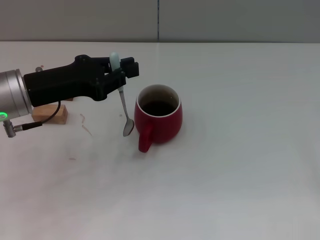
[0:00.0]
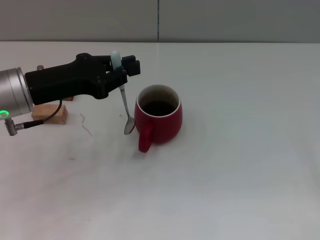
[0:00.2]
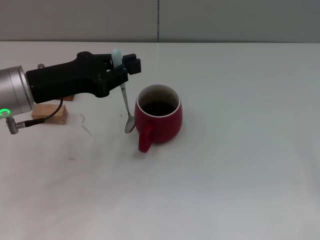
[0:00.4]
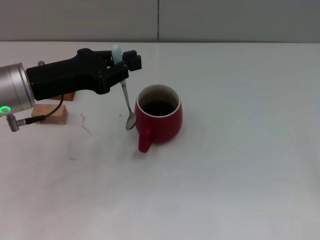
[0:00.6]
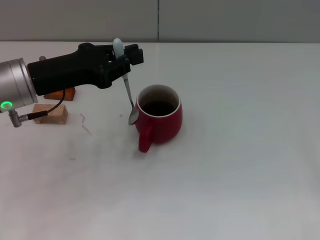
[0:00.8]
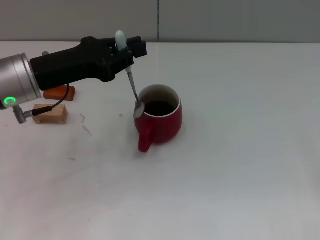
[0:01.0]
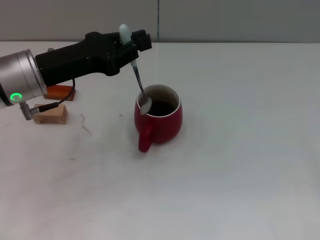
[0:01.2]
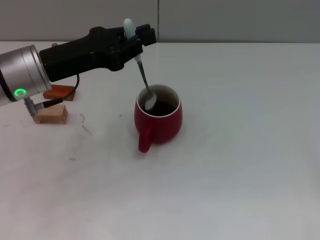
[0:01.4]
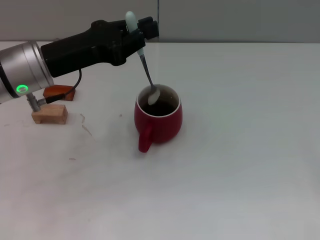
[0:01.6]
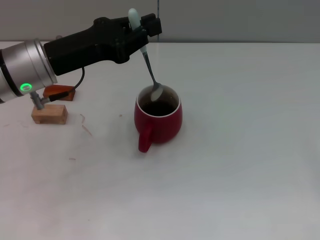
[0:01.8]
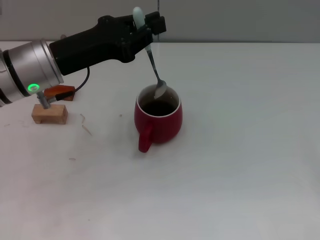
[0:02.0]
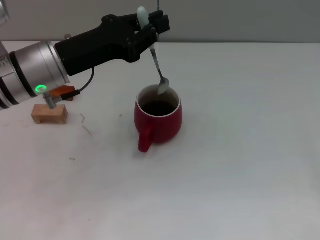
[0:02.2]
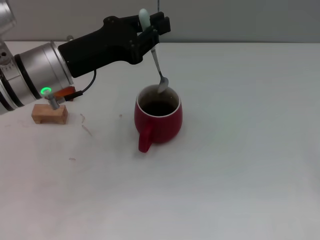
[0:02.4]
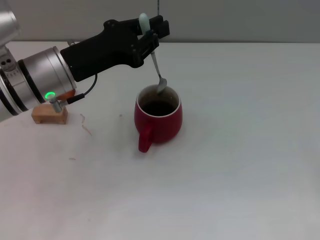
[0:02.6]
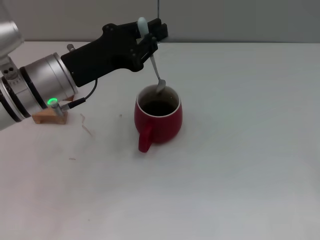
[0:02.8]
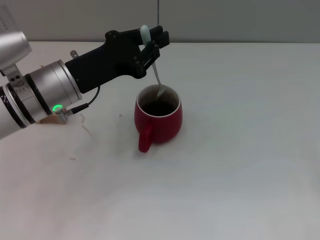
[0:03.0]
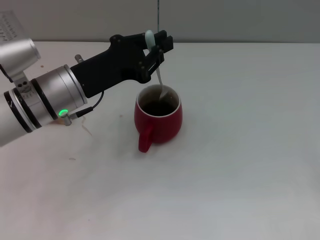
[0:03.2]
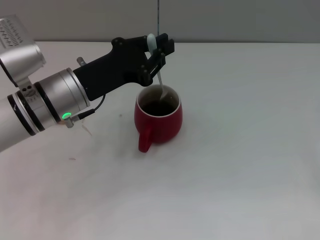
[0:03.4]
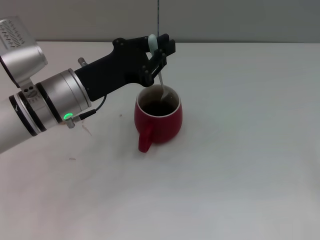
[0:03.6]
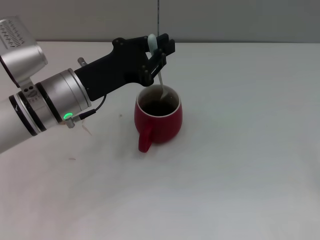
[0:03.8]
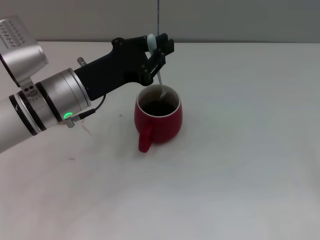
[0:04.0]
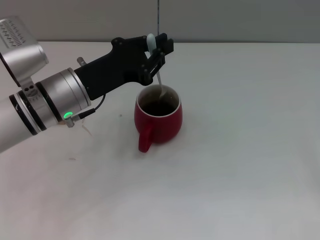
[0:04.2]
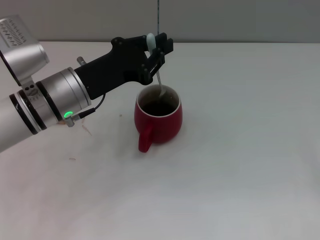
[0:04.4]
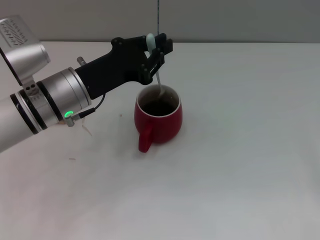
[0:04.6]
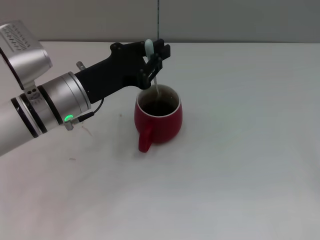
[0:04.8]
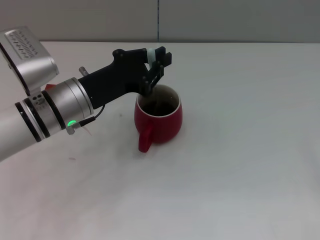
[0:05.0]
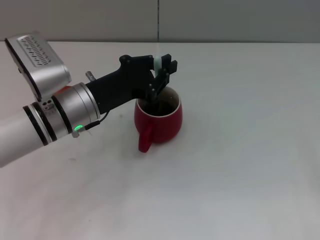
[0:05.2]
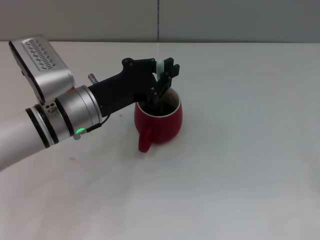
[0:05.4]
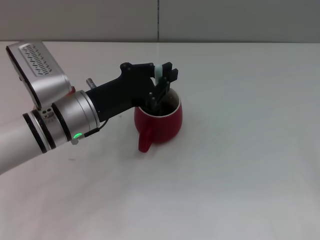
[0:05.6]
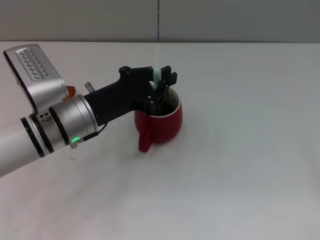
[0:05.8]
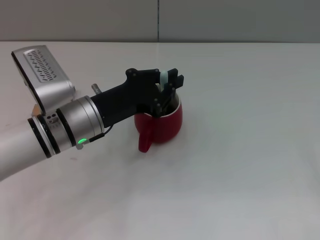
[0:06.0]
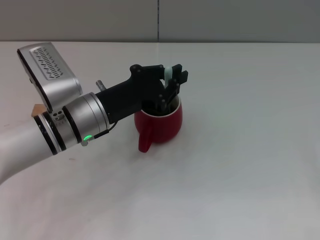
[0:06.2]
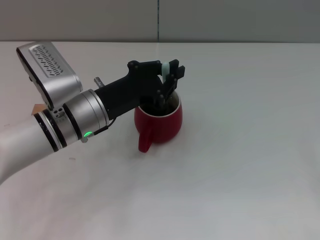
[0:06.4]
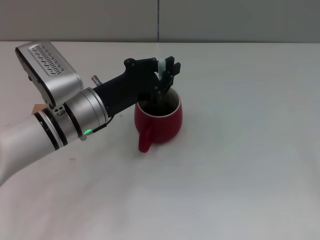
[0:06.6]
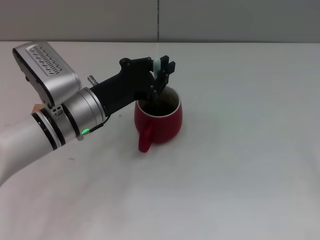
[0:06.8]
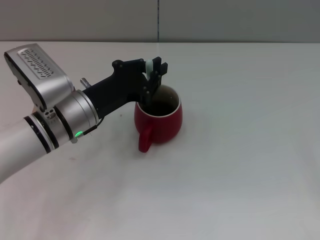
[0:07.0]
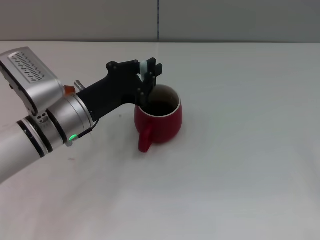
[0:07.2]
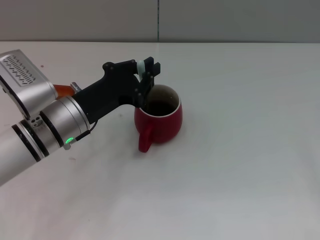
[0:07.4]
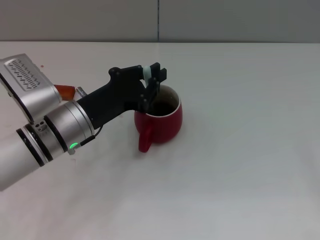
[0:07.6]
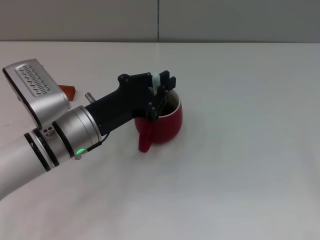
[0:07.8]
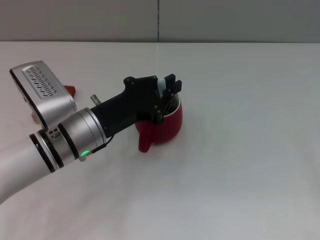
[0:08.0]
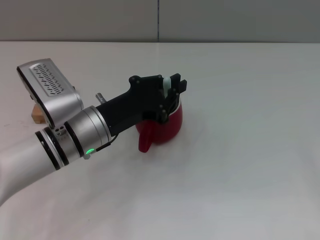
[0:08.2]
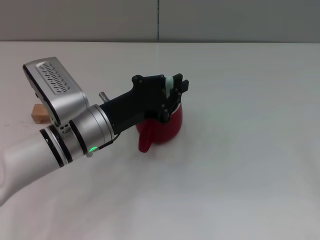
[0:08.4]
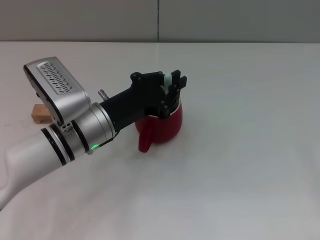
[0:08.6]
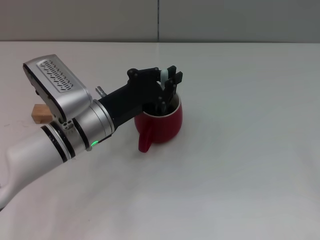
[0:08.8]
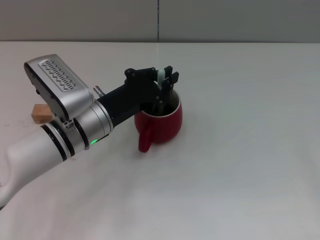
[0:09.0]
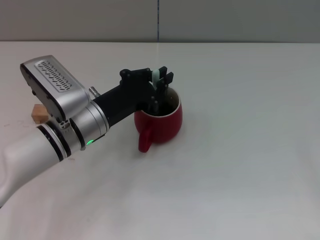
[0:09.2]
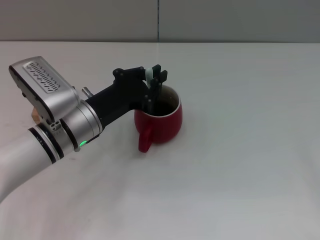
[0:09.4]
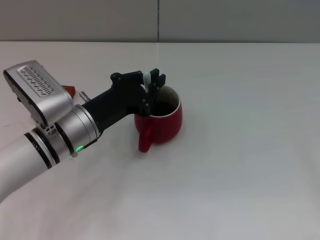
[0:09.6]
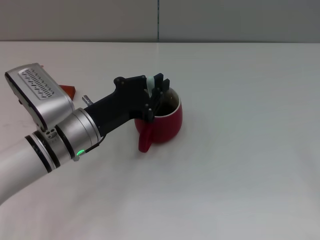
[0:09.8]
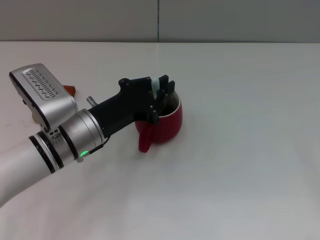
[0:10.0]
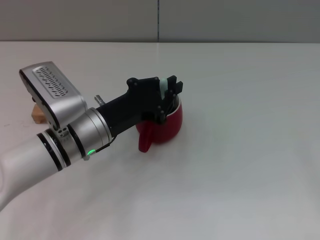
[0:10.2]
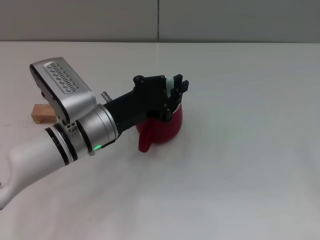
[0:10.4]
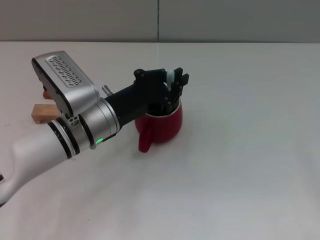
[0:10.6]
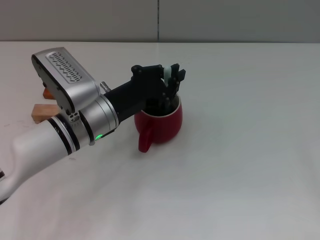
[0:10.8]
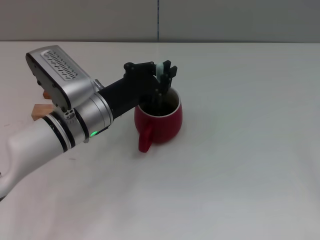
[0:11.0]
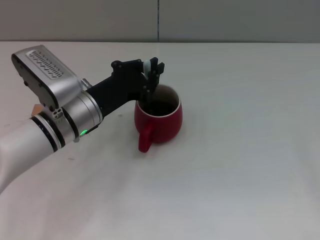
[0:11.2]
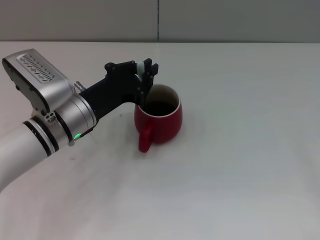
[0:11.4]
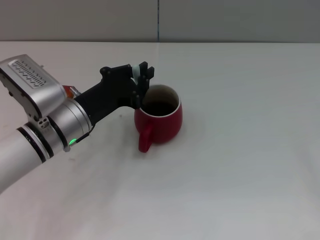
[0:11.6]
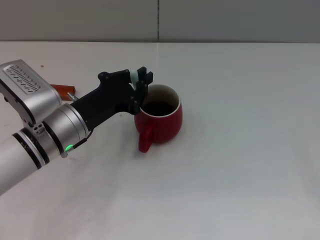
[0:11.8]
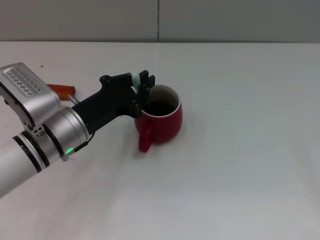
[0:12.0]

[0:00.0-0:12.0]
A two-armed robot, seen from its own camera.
Task of the whole recording: Move the red cup to the center, lift the blue spoon, stir it three times in the cup, and put the spoon into the cup.
0:00.0 to 0:03.0: The grippers move only a little.
0:03.0 to 0:07.6: There are only small adjustments of the grippers.
0:07.6 to 0:12.0: The grippers move only a little.

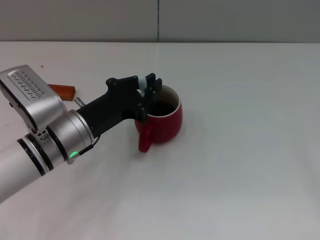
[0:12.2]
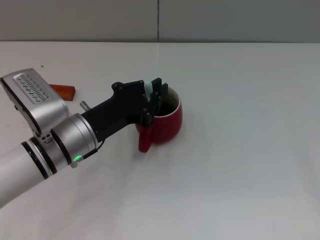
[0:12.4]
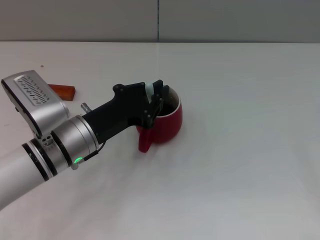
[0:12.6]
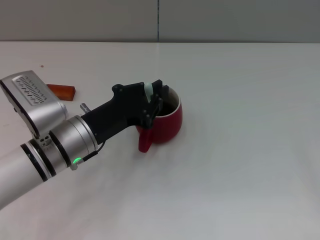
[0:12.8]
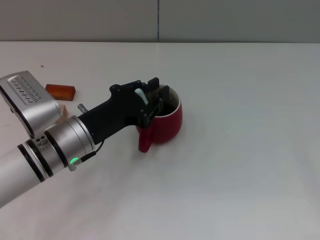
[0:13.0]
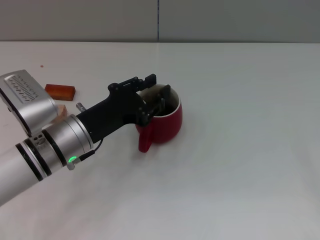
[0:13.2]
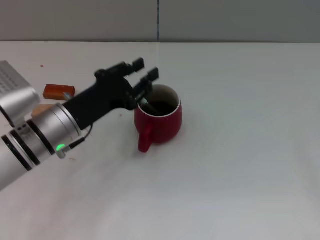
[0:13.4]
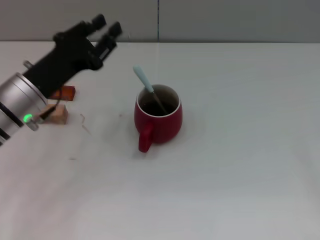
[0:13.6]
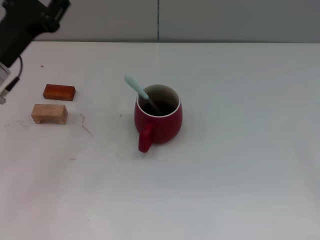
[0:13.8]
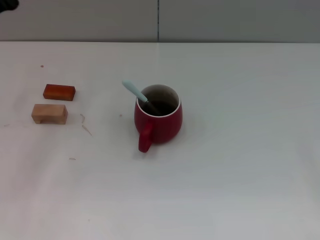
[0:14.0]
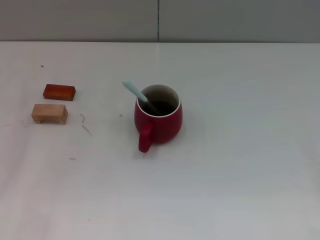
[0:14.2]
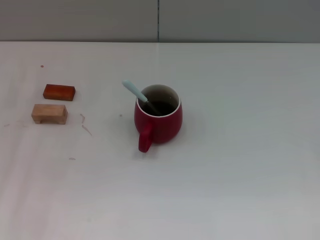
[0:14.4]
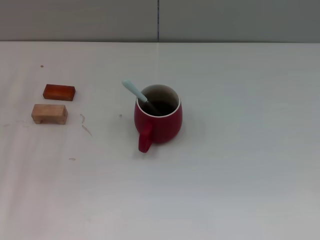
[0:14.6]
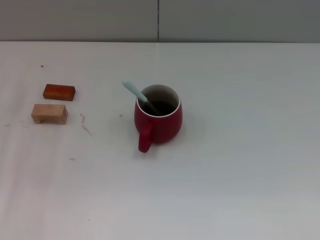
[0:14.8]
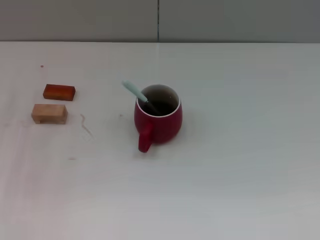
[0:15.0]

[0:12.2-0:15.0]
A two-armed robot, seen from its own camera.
Task of the whole recording: Move the red cup to the center, lift the blue spoon, stir it three times in the cup, and put the spoon into the cup.
0:12.2 to 0:13.6: The left gripper is displaced to the left by about 5 cm, and opens up.
0:13.6 to 0:15.0: The left gripper goes roughly 10 cm to the left.
